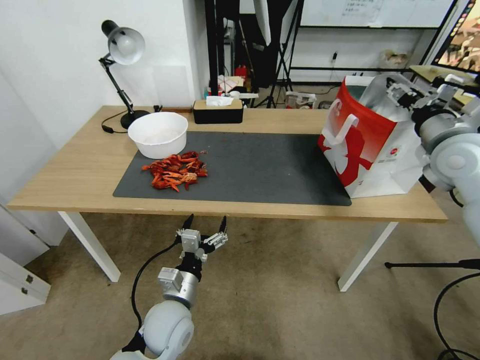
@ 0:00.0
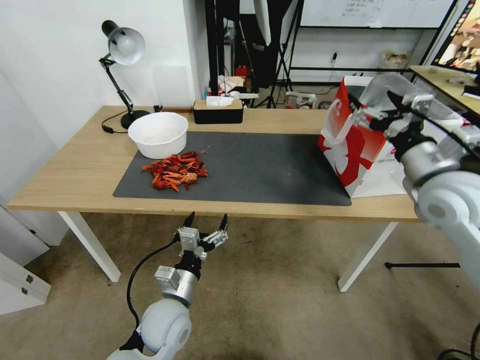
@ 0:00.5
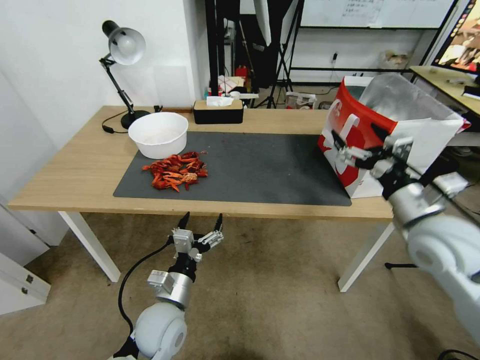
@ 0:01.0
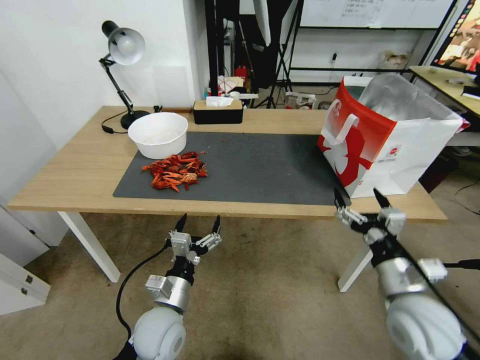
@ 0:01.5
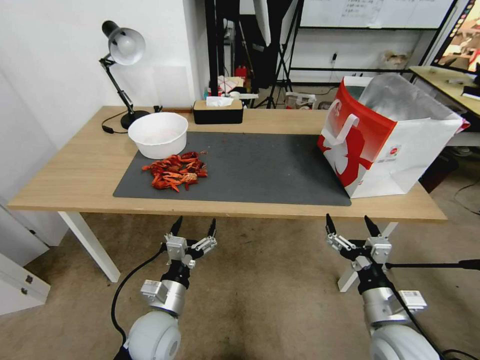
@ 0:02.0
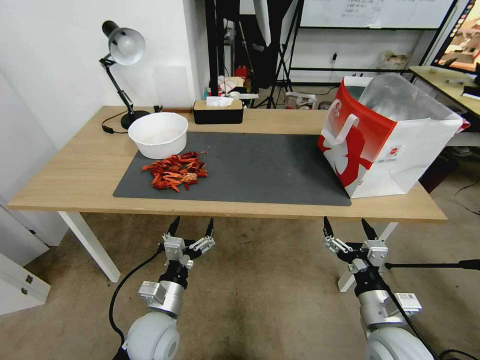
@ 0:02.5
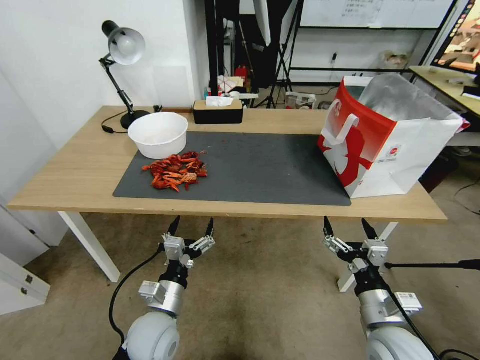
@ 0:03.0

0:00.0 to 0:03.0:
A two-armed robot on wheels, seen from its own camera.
Task of the whole recording: Close the takeout container lid, then place the container into the takeout bag.
0:00.0 to 0:01.5: The right gripper shifts about 30 cm downward, backward and to the left.
0:01.5 to 0:03.0: The right gripper is displaced downward by about 5 cm.
